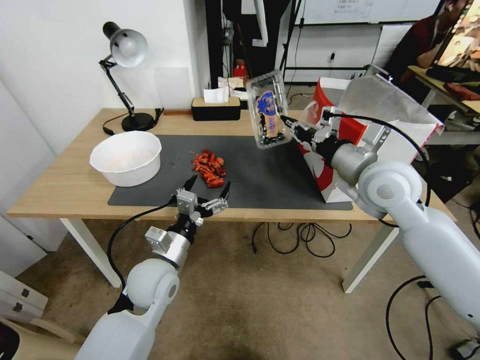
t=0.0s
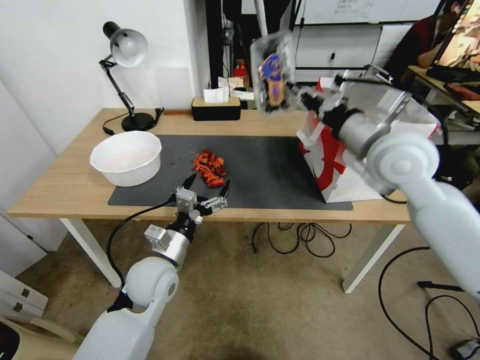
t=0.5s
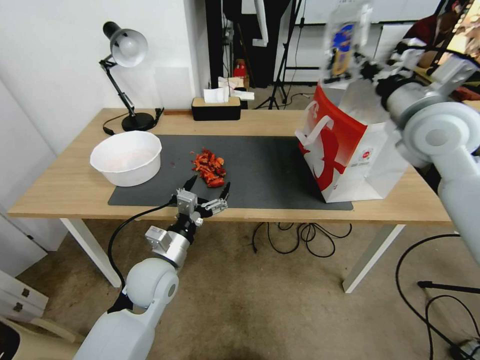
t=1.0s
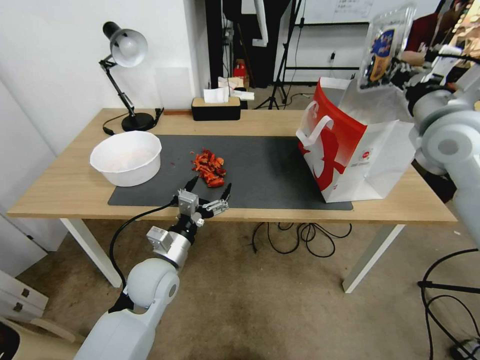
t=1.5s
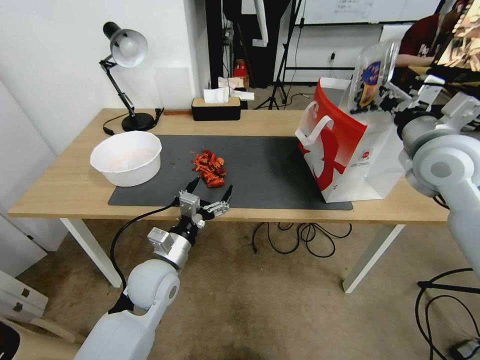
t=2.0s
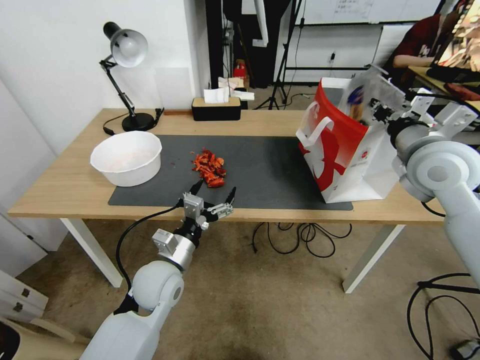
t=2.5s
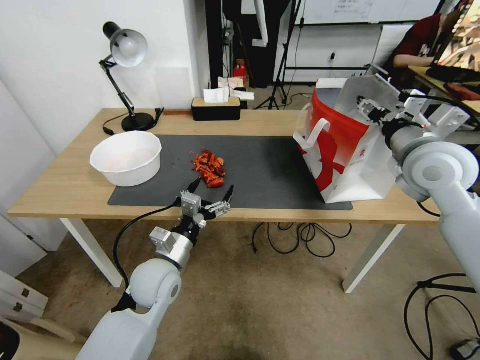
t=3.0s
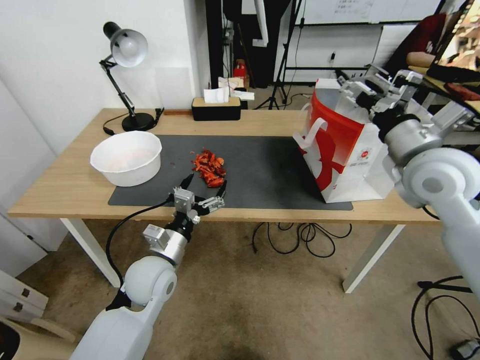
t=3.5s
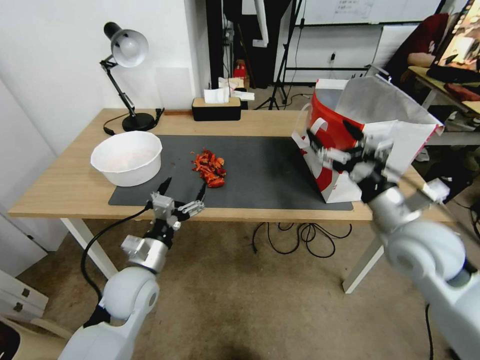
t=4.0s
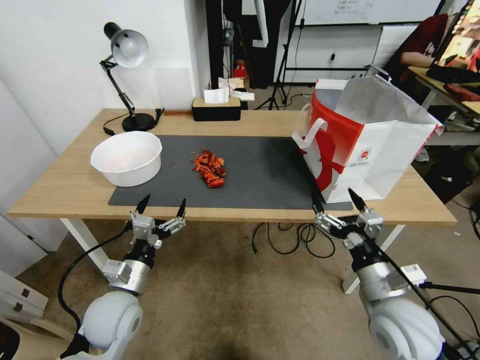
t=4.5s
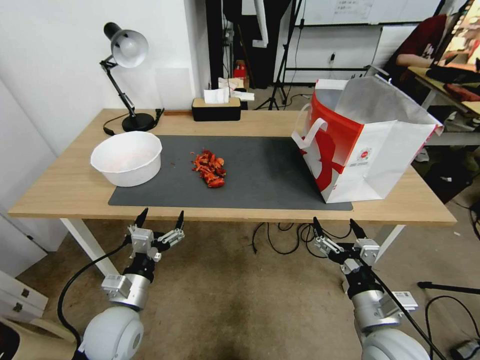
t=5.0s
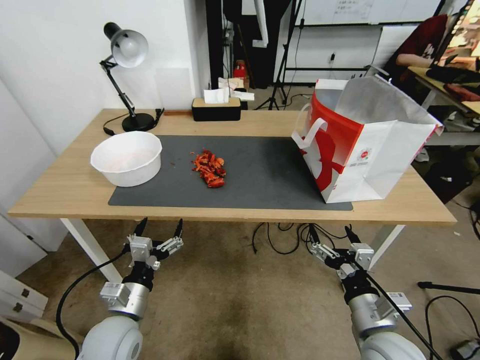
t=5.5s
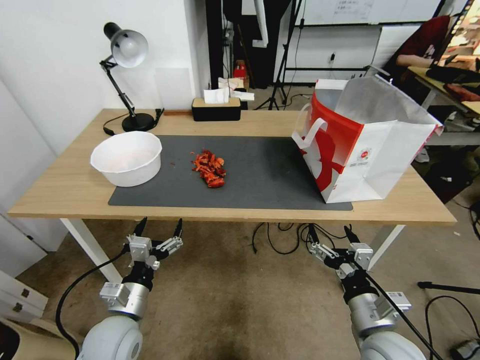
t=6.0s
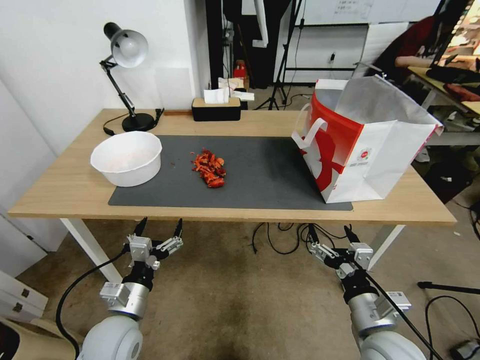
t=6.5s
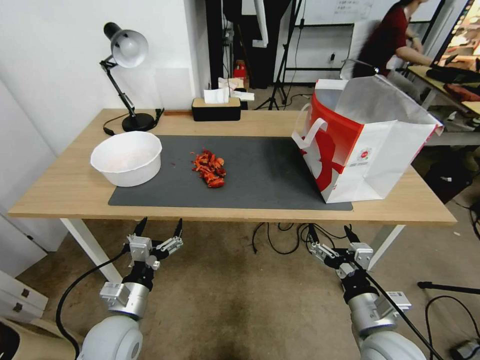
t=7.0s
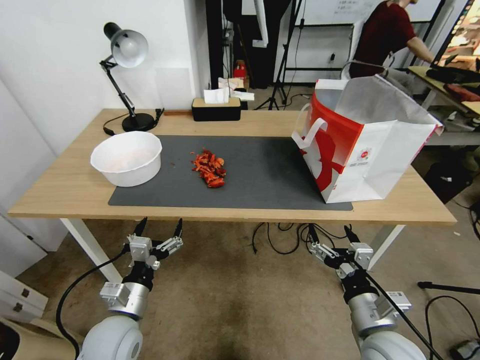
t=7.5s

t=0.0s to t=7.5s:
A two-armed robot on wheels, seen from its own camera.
t=0.0s to t=2.0s: The right gripper travels to the right by approximately 10 cm.
t=2.0s to t=4.0s: The right gripper moves downward and backward, some 15 cm, and opens up.
t=4.0s to t=5.5s: The left gripper moves backward, approximately 10 cm. The right gripper heads downward and backward, covering about 20 cm.
t=5.5s to t=7.5s: Both grippers stay about where they are.

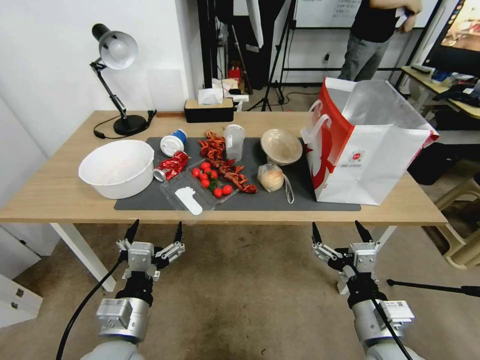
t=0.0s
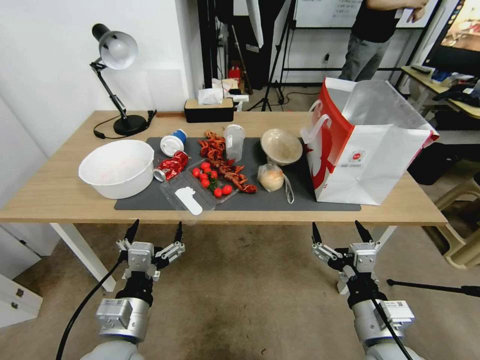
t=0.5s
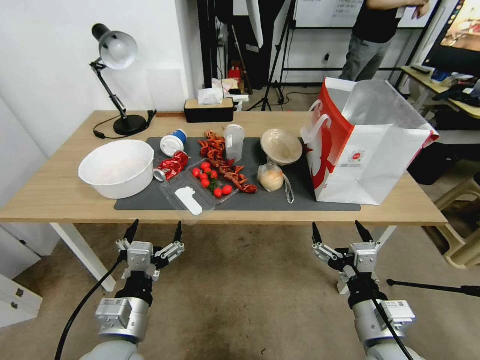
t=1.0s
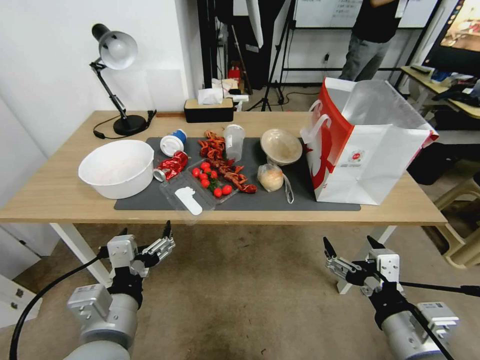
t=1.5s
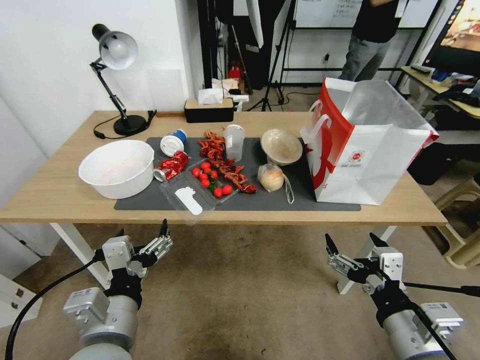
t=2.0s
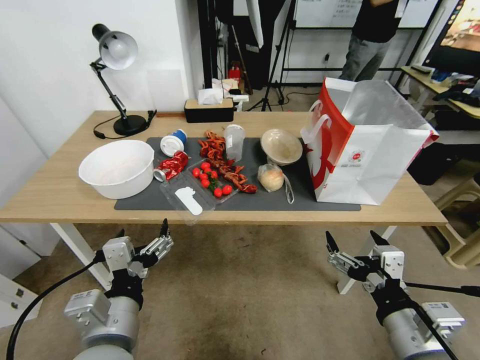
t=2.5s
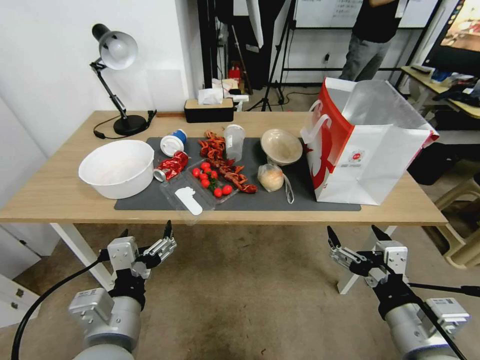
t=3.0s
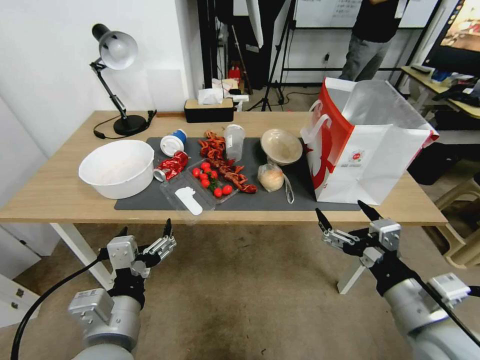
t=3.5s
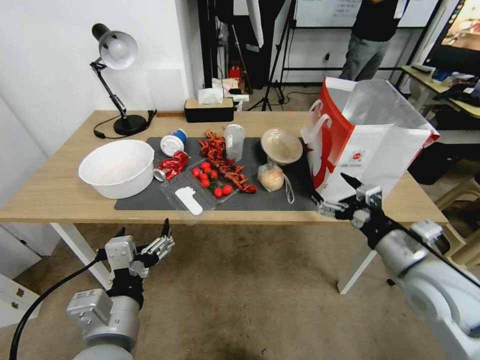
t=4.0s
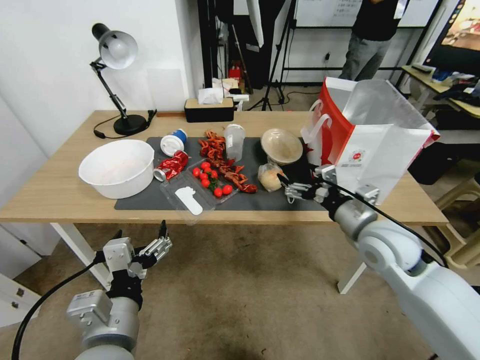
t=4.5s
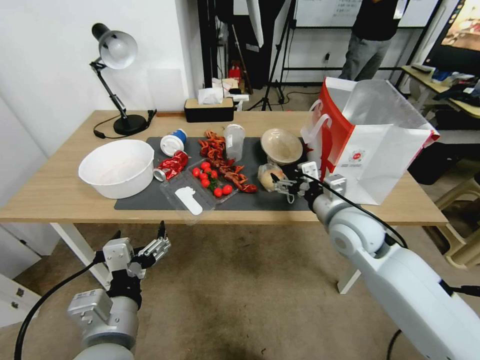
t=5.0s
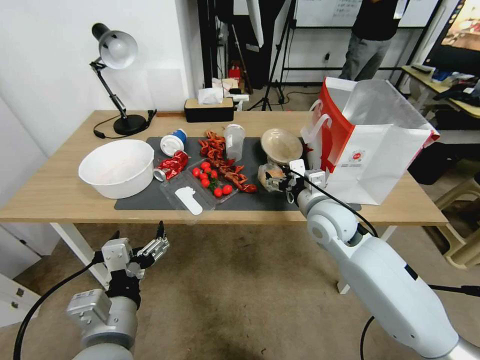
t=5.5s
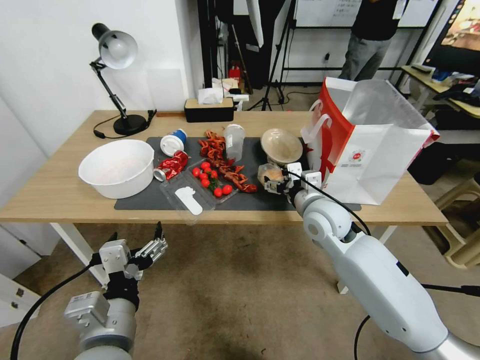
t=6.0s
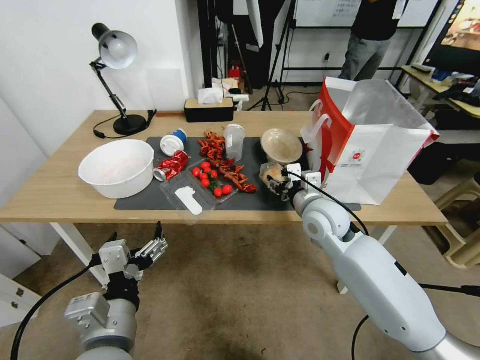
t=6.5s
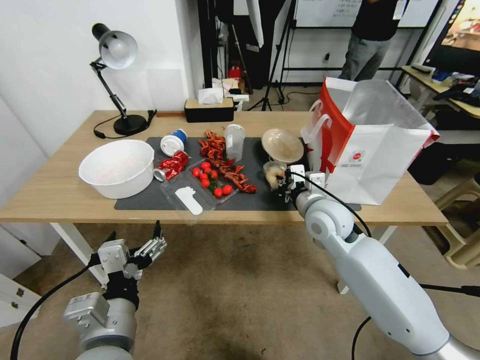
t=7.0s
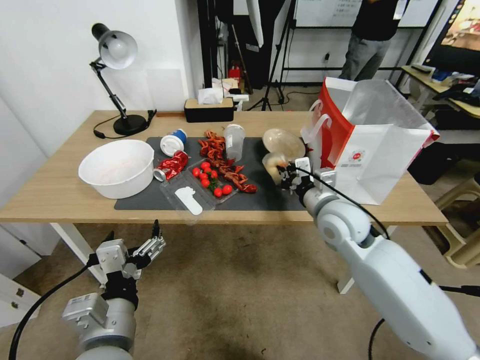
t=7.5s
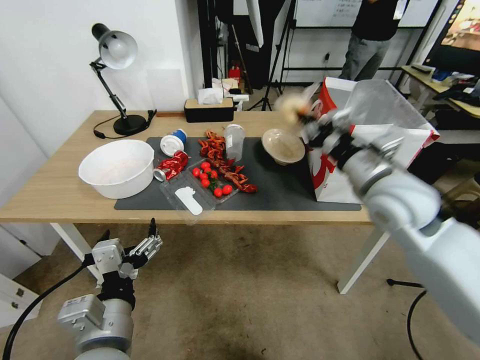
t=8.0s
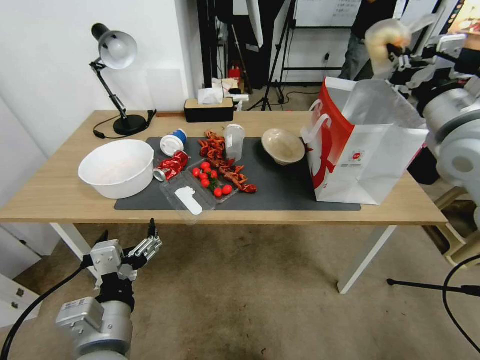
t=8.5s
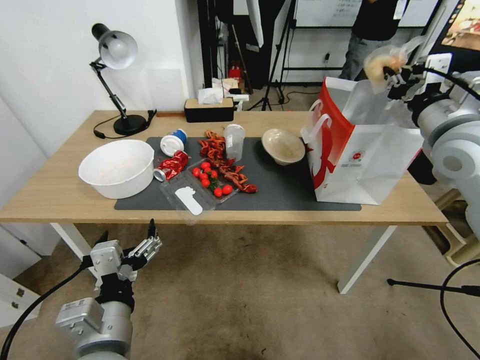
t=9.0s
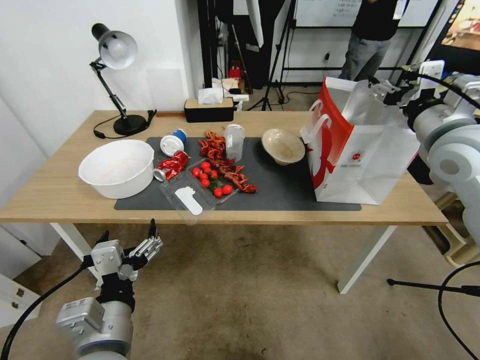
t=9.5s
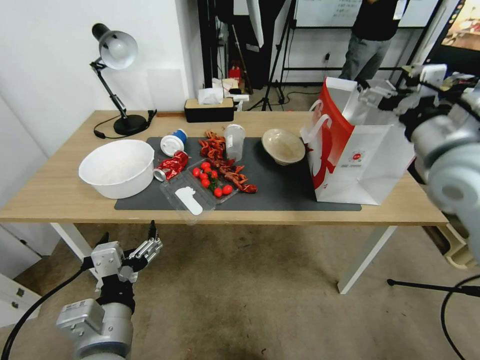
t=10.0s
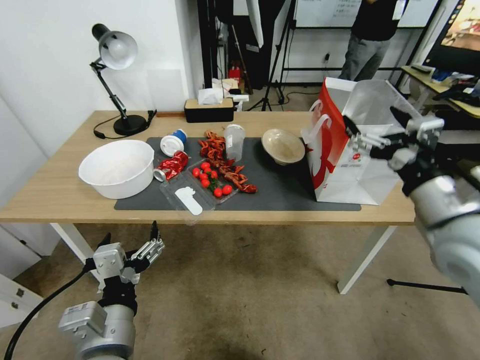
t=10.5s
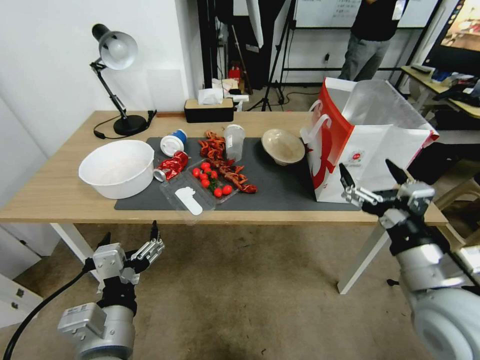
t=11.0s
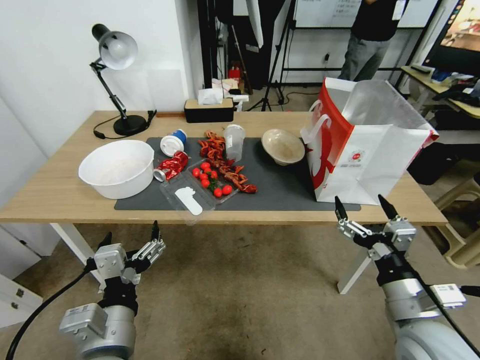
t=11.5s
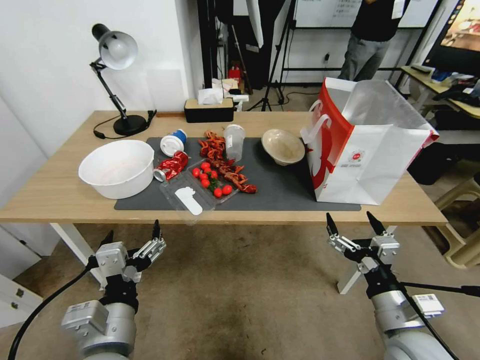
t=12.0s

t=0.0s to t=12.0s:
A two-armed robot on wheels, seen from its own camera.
t=2.0s to t=4.0s: The right gripper shifts roughly 15 cm forward and to the right.
t=4.0s to t=6.0s: The right gripper heads forward and to the left, covering roughly 20 cm.
t=6.0s to t=8.0s: The right gripper travels upward and to the right by about 15 cm, and closes up.
t=8.0s to t=10.0s: The right gripper shifts about 10 cm upward and to the right, and opens up.
t=10.0s to t=12.0s: The right gripper heads downward and backward, covering approximately 30 cm.

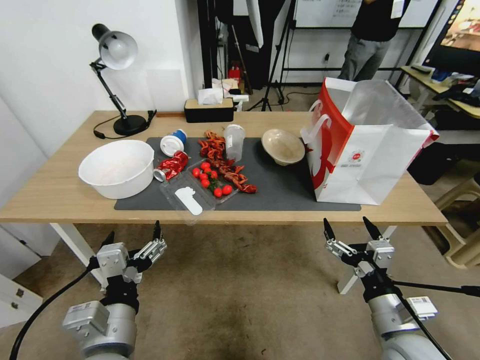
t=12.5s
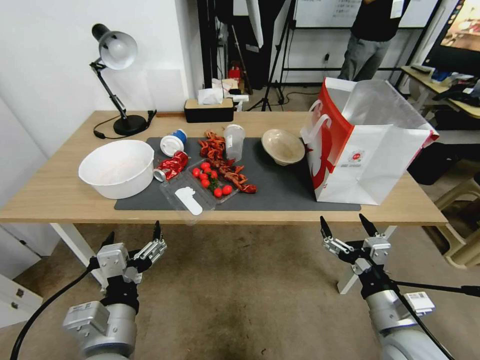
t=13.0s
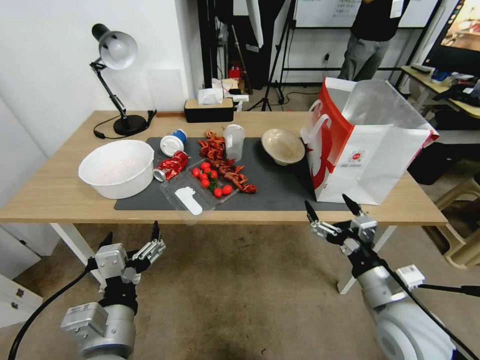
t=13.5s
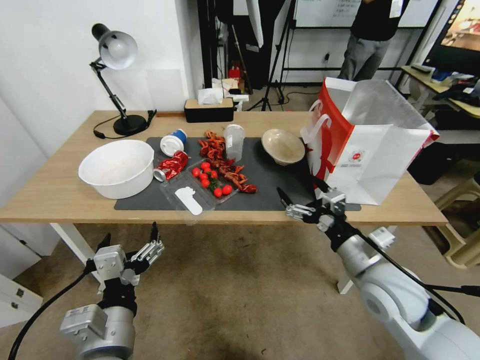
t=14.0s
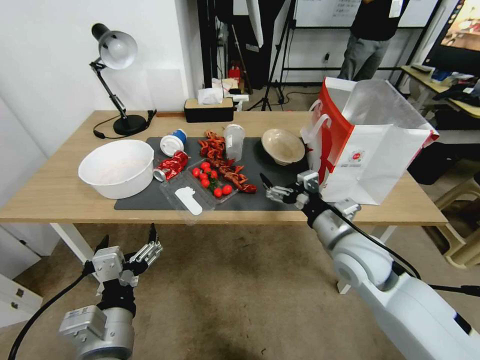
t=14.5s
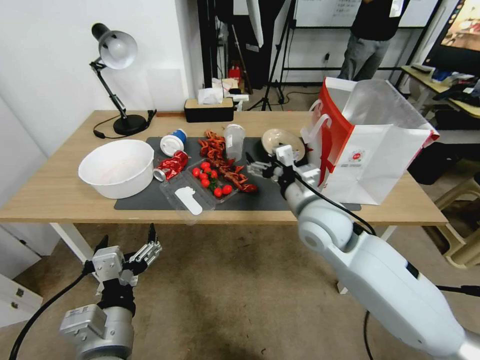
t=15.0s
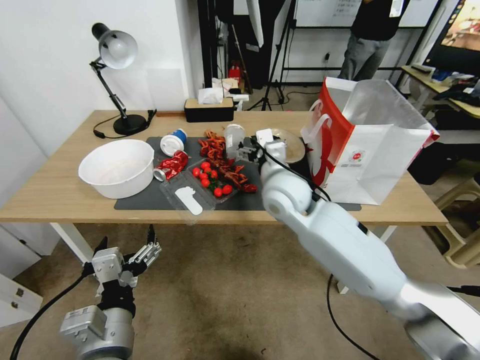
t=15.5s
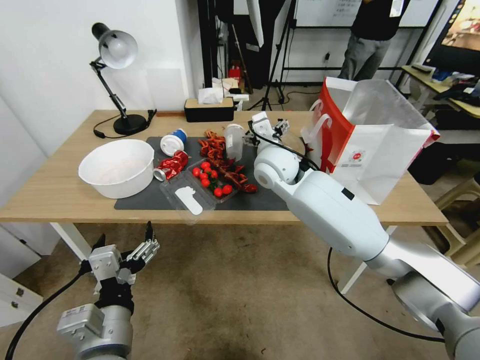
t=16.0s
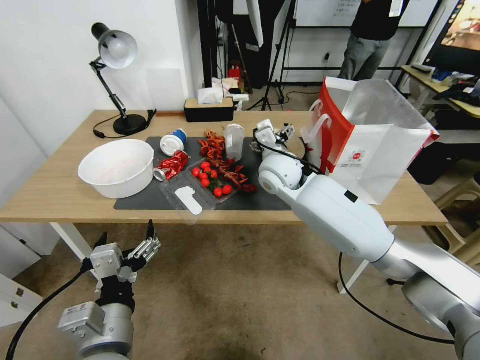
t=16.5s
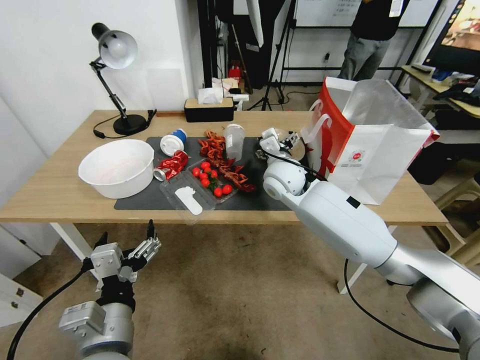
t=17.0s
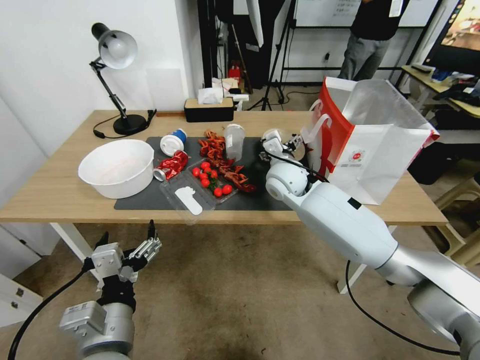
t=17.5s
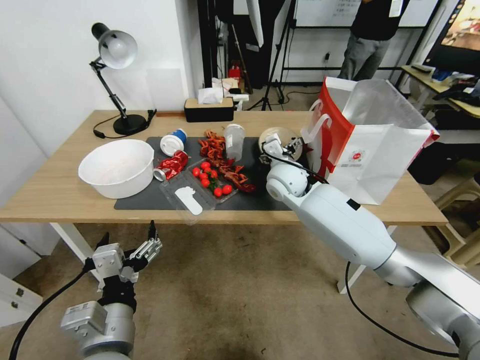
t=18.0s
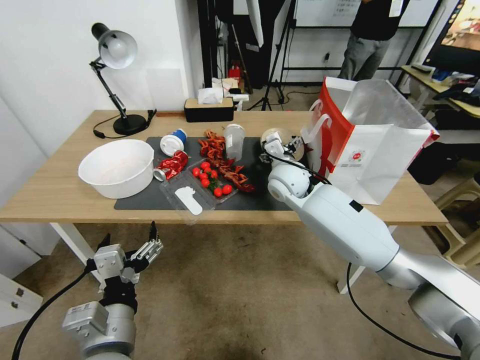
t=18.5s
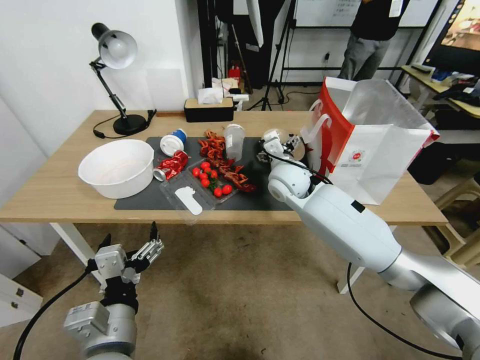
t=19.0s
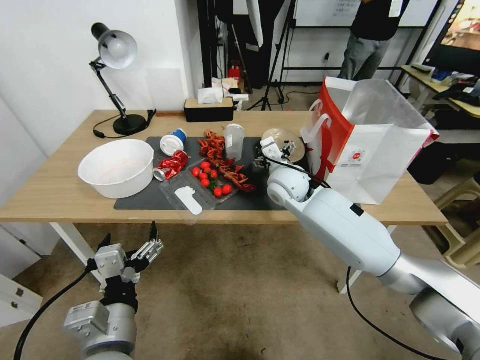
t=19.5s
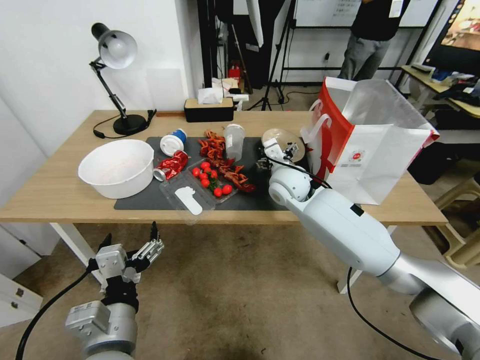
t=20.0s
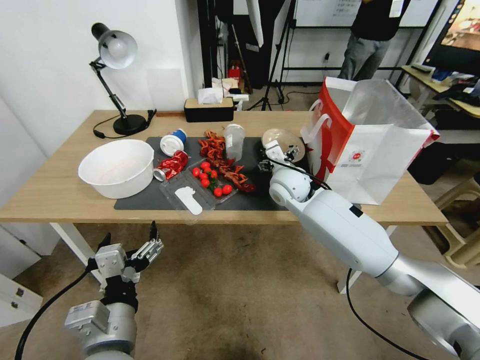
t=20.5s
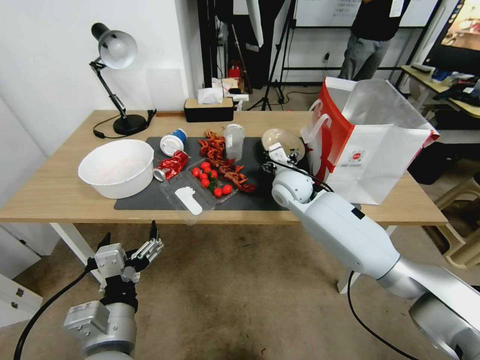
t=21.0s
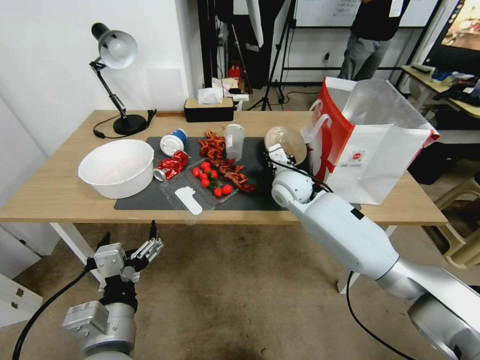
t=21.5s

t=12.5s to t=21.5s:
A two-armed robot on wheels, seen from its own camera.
t=12.5s to t=14.5s: The right gripper heads forward, upward and to the left, covering about 20 cm.
t=14.5s to t=17.0s: The right gripper moves forward and to the left, about 20 cm.
t=17.0s to t=19.5s: The grippers stay close to where they were, moving slightly.
t=19.5s to t=21.5s: The right gripper closes.
